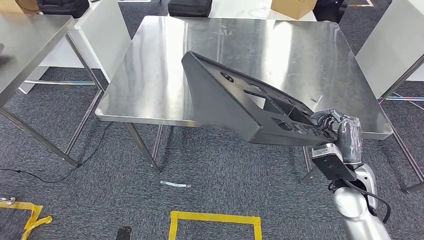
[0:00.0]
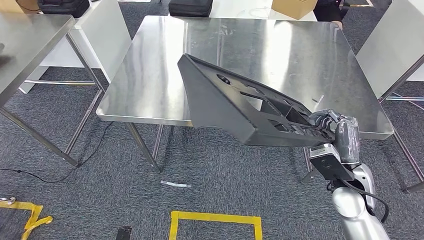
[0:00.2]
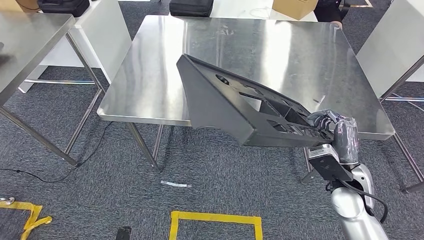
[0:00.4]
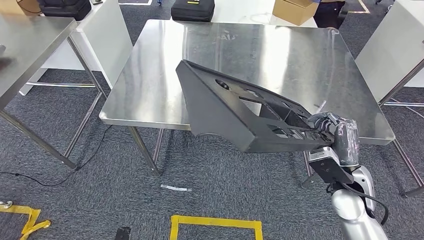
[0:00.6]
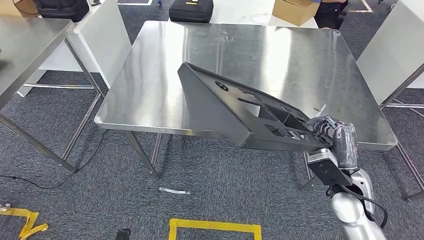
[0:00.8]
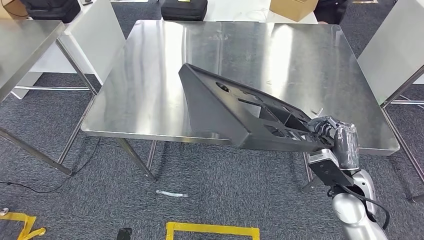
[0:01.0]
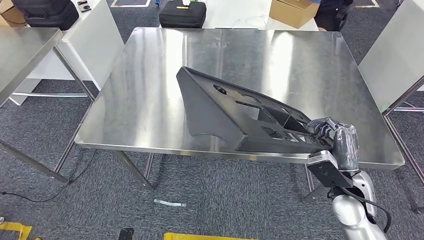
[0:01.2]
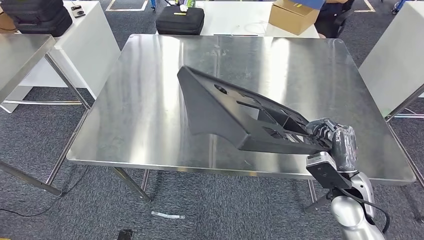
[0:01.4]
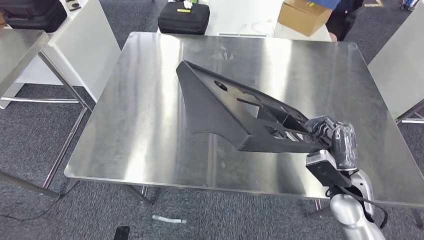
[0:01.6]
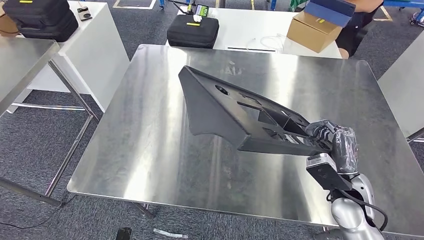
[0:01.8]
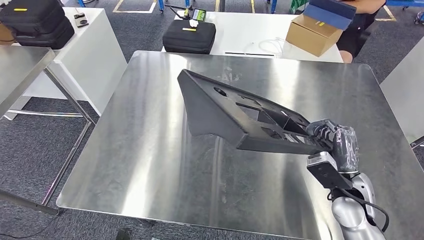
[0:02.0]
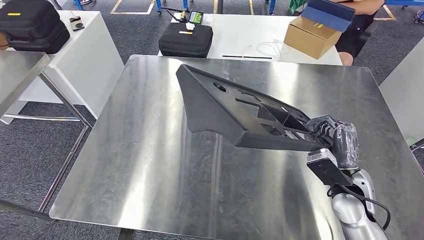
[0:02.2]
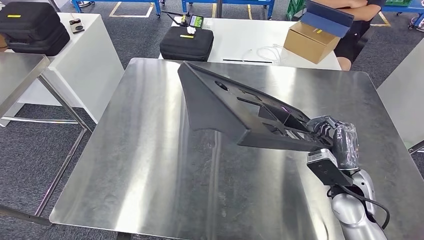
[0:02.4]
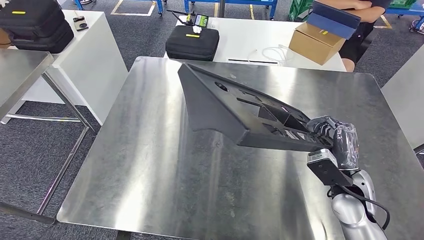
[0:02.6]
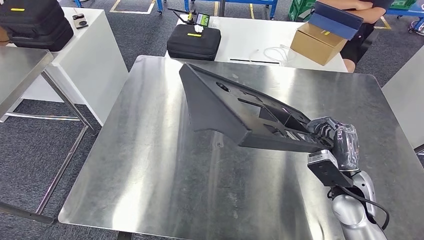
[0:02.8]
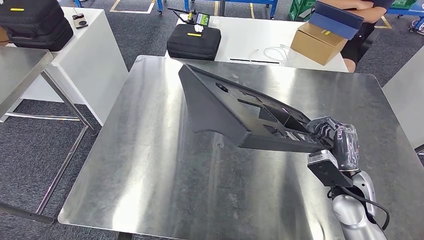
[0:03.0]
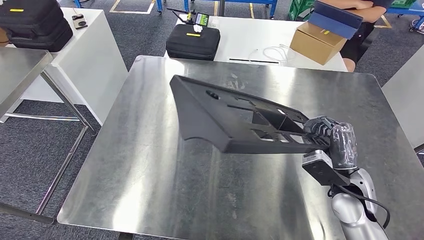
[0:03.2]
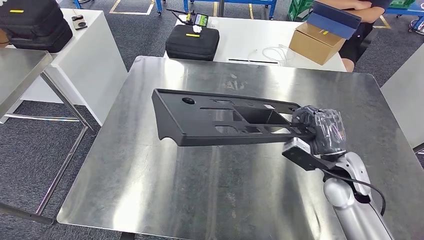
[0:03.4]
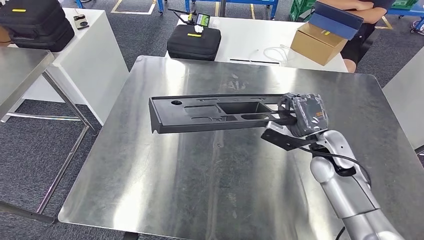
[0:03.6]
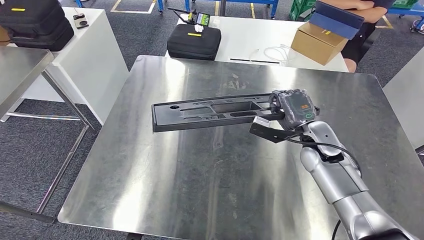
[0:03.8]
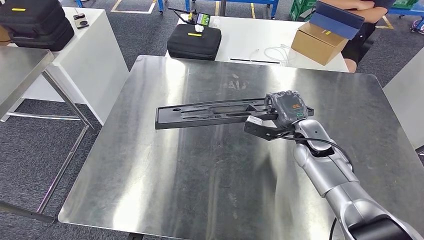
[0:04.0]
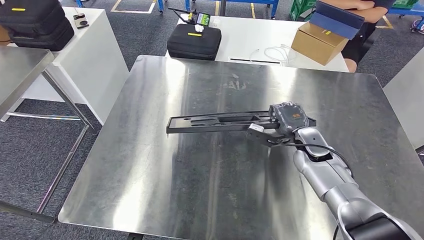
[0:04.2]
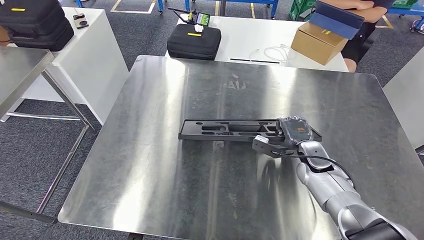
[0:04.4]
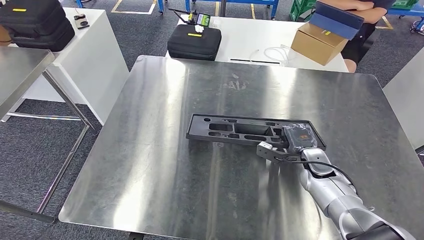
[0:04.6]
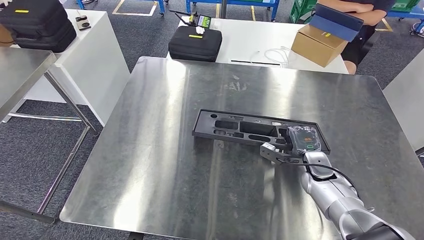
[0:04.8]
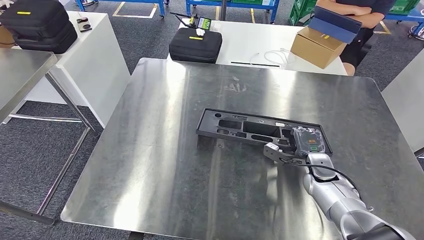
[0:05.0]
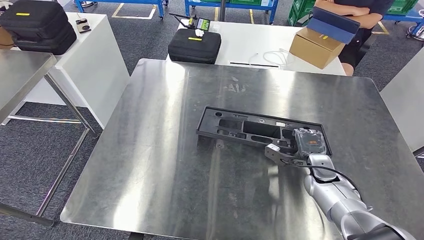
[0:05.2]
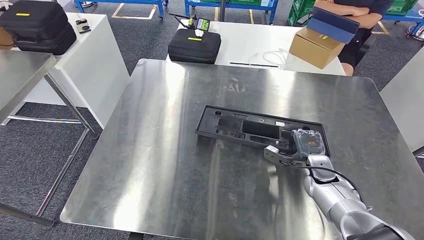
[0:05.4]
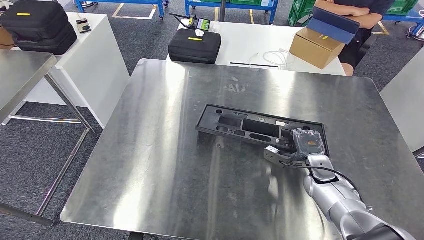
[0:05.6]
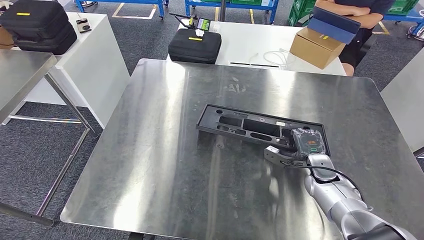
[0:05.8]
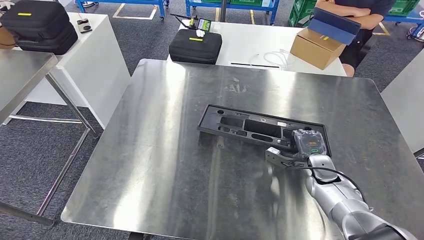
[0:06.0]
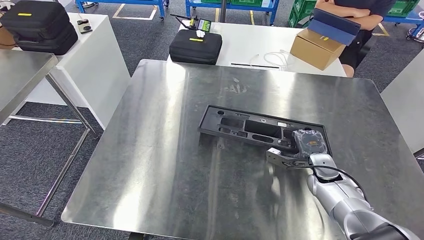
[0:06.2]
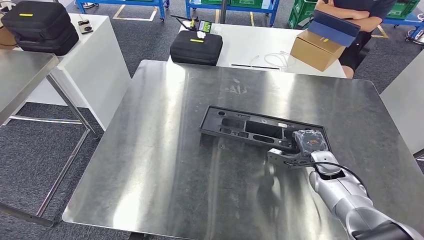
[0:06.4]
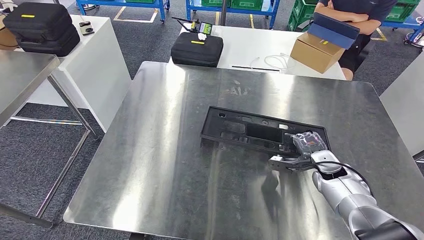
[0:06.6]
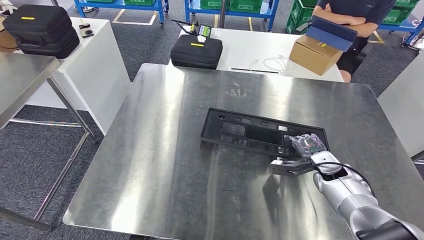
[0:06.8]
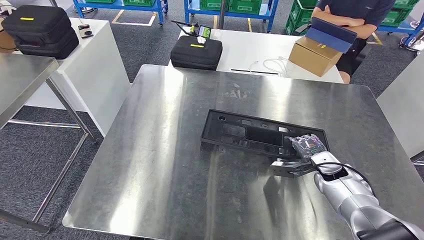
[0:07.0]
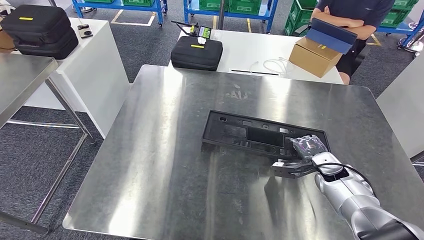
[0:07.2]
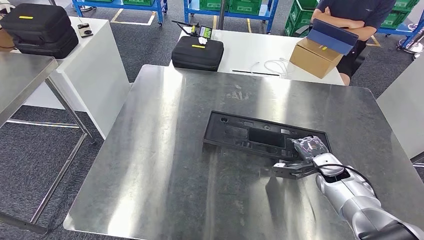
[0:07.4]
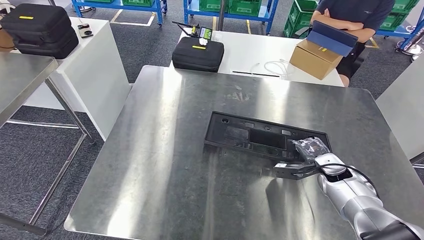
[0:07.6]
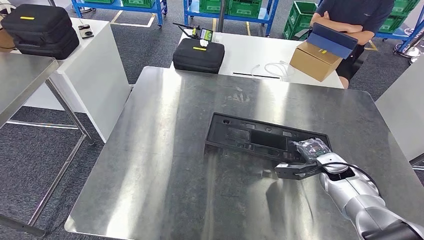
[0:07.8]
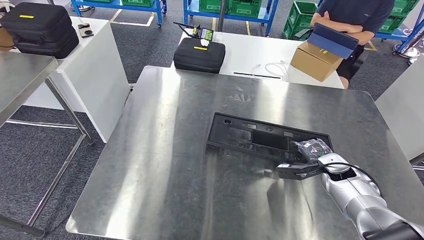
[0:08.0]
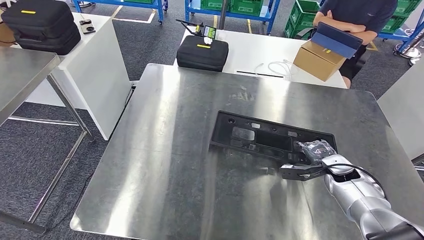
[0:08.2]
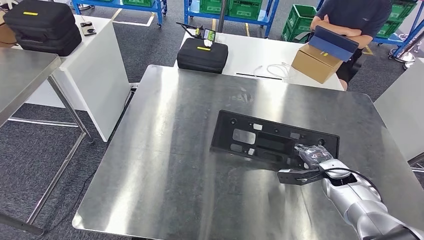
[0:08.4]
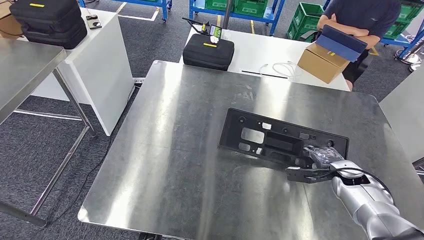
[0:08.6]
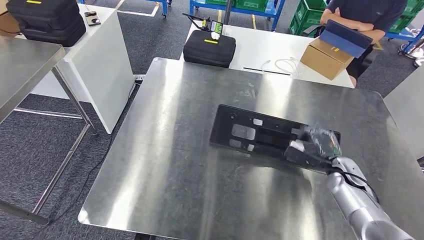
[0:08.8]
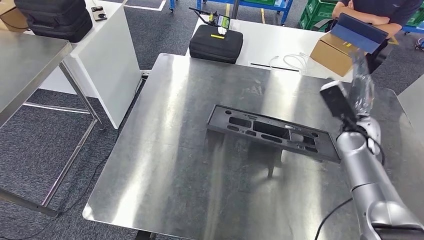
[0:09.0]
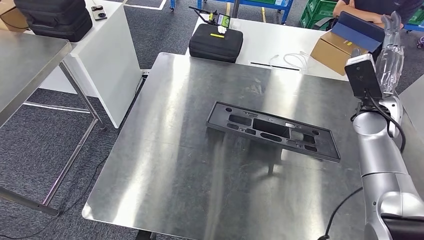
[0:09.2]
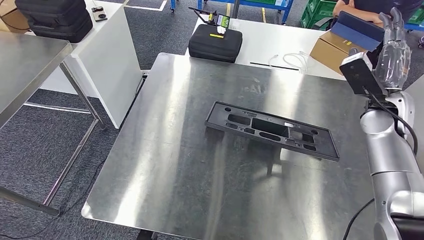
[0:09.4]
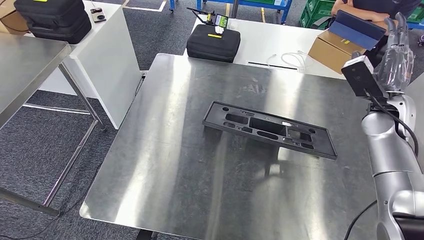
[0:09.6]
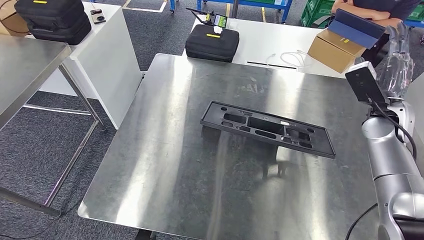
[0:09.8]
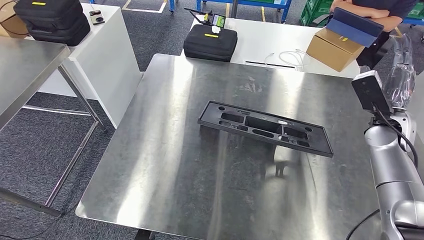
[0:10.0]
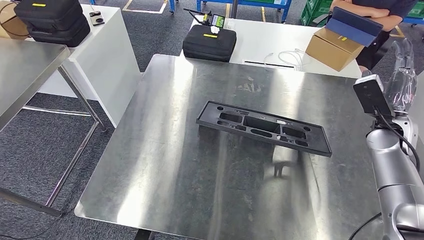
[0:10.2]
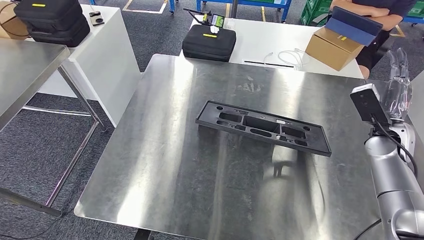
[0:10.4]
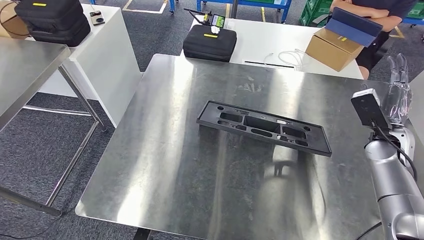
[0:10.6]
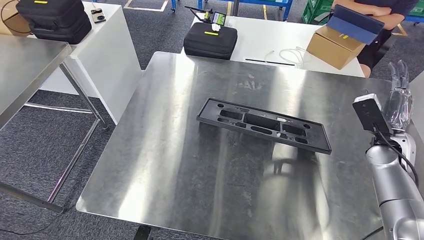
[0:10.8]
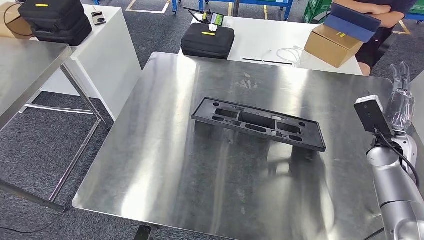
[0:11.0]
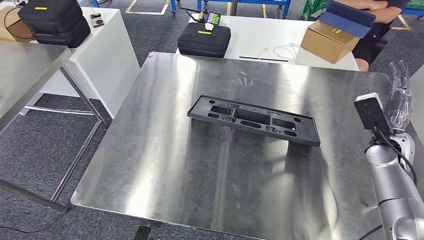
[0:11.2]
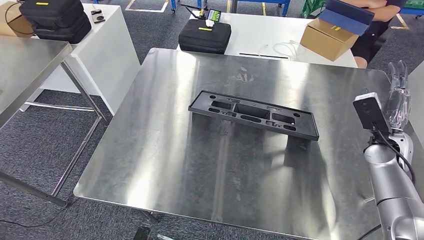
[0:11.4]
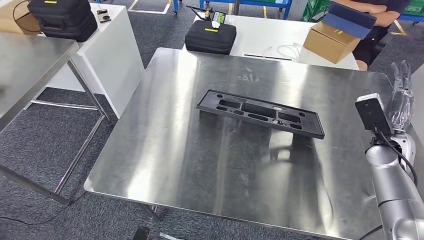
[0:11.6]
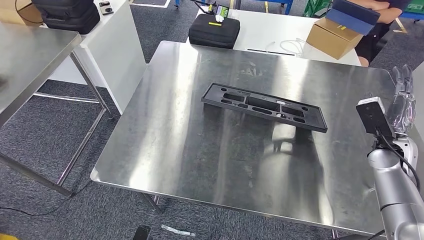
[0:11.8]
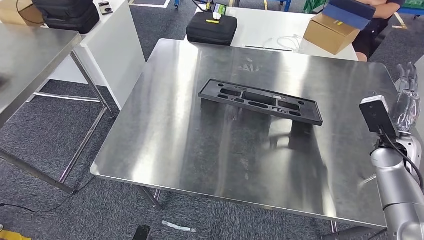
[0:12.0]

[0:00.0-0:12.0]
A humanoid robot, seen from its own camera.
0:03.0 to 0:04.4: The right hand shifts roughly 15 cm forward and downward.

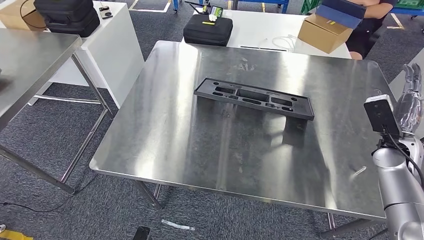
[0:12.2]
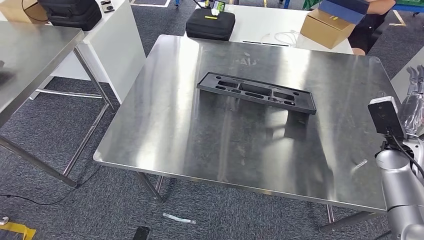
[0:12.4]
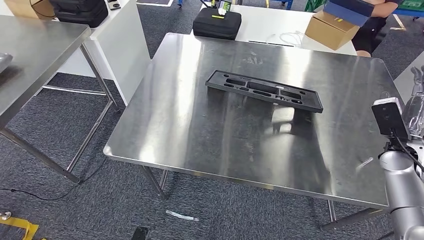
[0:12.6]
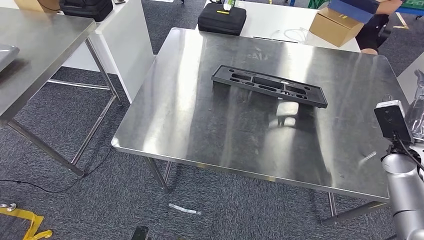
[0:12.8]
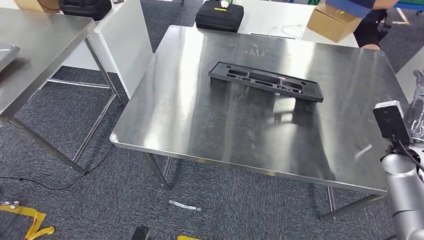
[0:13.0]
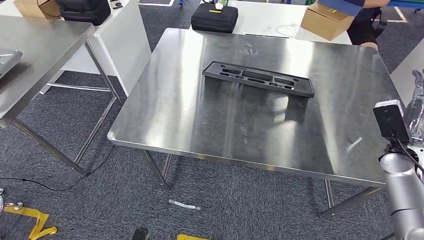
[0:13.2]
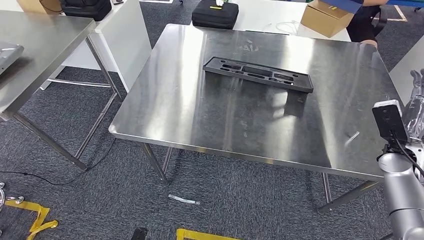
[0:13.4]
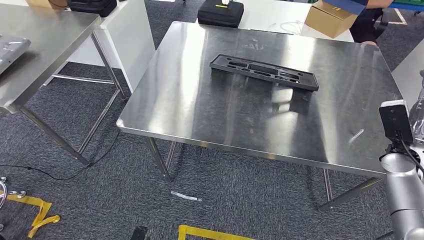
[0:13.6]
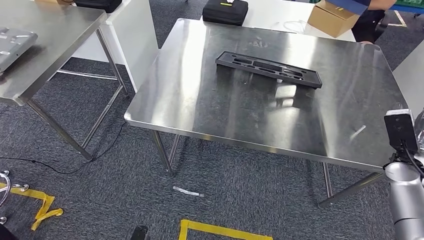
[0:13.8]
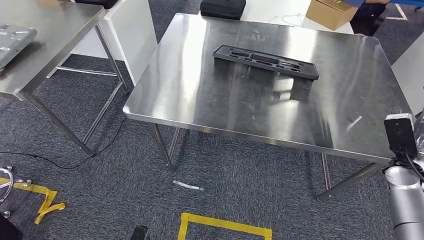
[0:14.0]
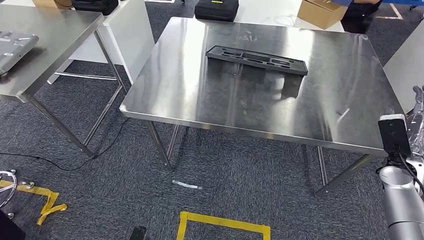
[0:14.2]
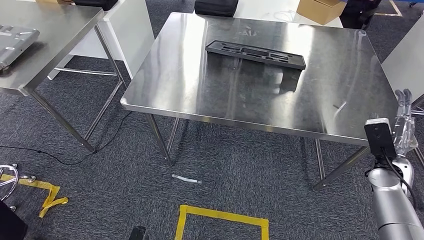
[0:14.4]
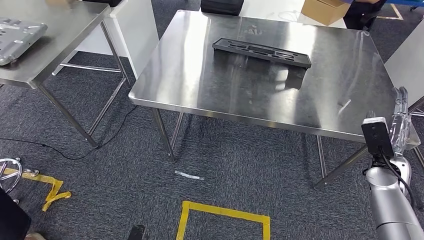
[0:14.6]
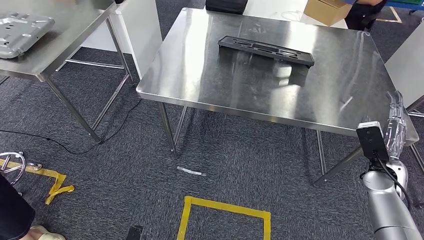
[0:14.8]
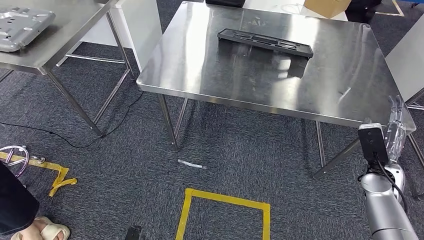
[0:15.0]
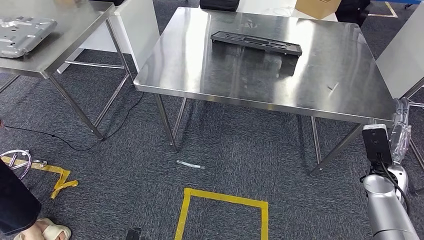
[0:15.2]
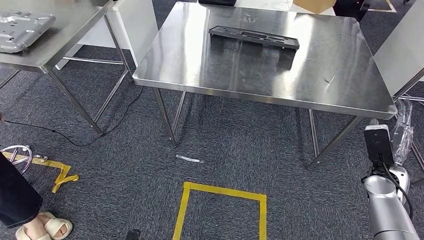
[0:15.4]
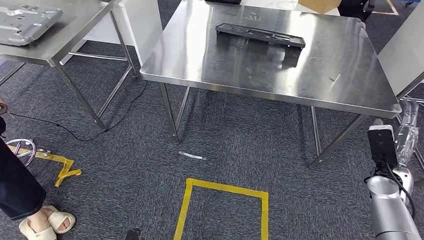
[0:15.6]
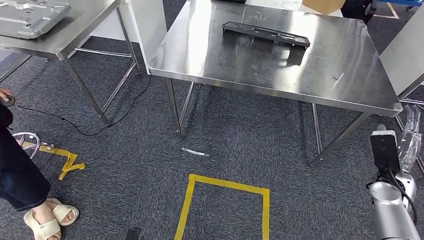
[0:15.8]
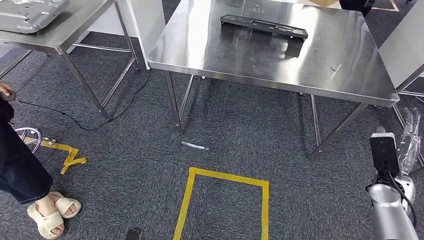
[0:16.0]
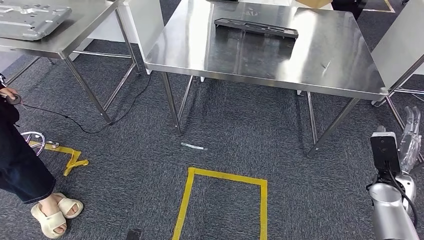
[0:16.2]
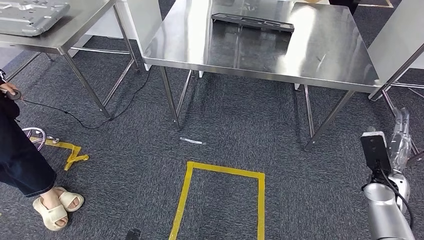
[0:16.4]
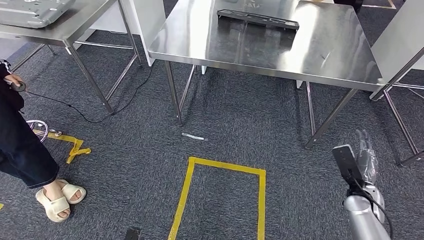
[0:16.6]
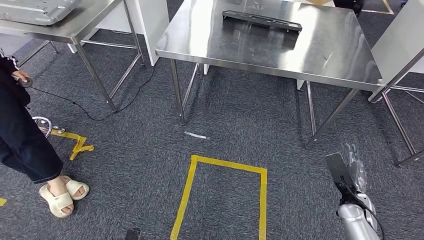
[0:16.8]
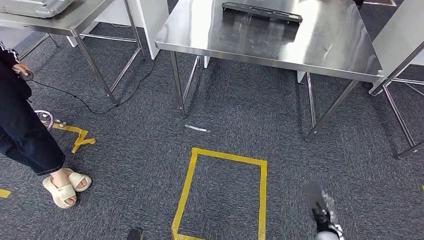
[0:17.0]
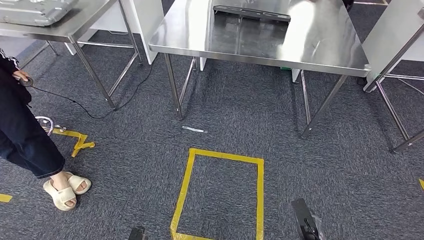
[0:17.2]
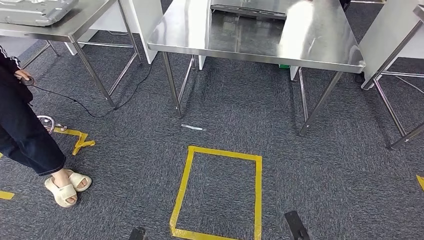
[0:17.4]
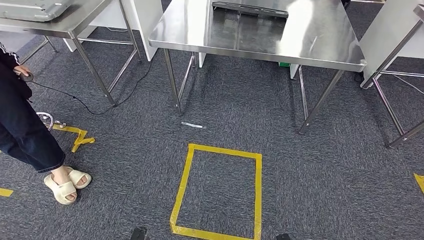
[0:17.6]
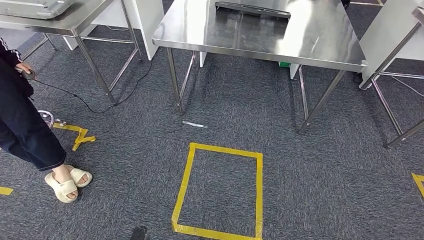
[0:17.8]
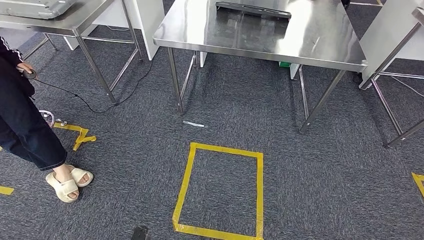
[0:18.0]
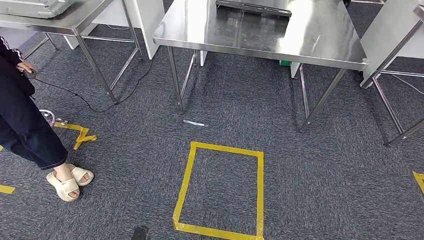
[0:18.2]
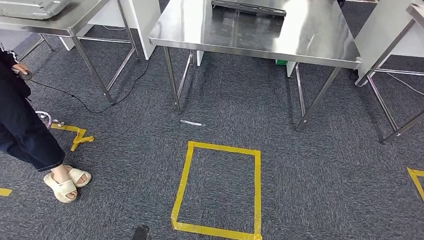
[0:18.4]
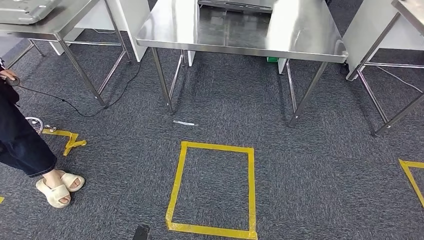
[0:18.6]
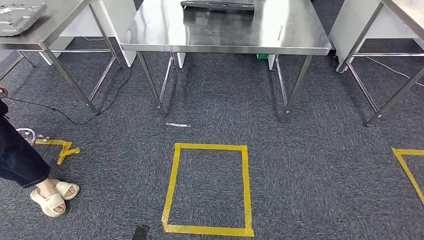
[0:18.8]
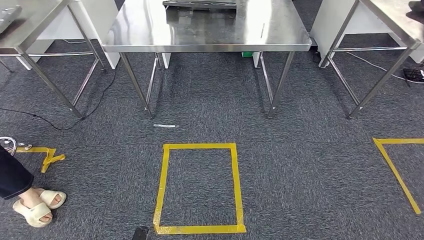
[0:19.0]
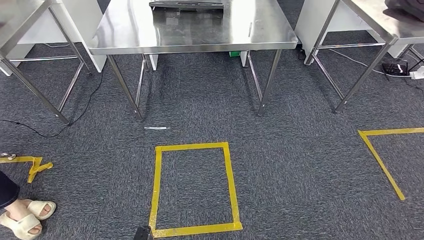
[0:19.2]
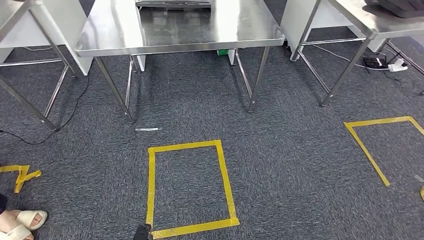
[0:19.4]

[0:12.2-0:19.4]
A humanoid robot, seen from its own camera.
Step, 0:12.2 to 0:14.4: Insert the large material into the corresponding hole on the workbench.
